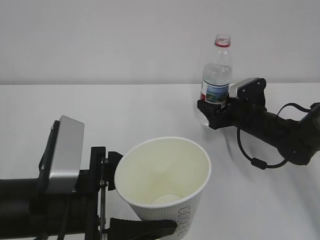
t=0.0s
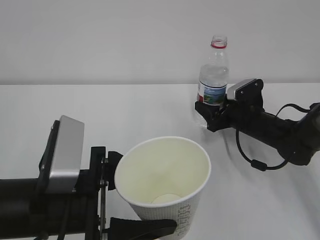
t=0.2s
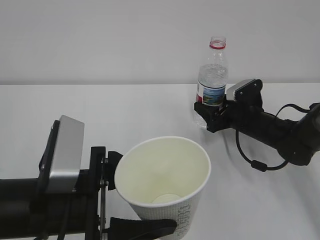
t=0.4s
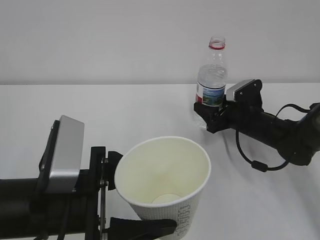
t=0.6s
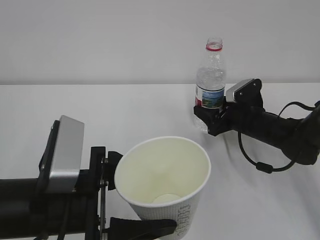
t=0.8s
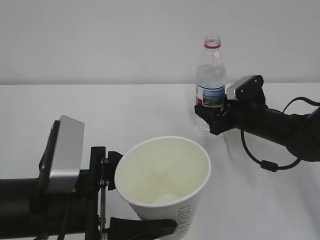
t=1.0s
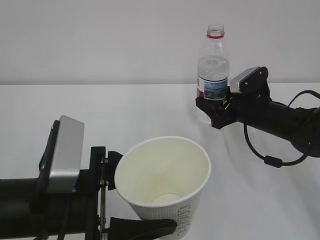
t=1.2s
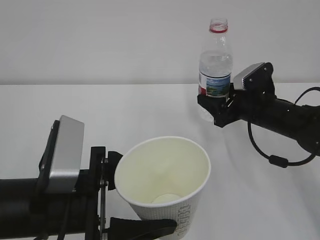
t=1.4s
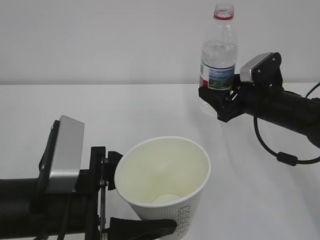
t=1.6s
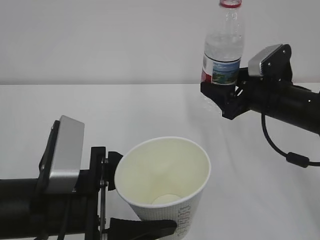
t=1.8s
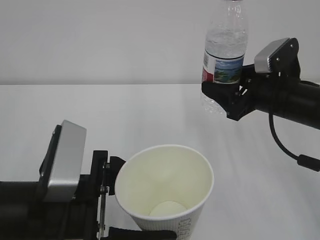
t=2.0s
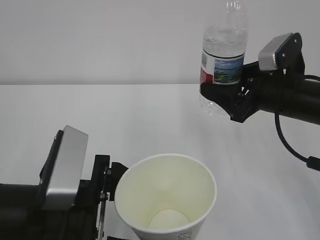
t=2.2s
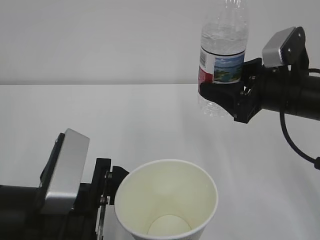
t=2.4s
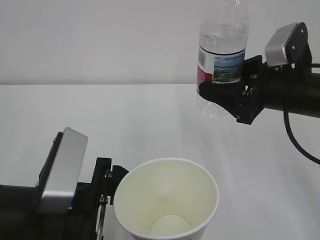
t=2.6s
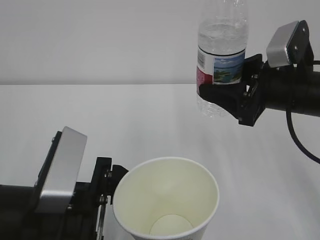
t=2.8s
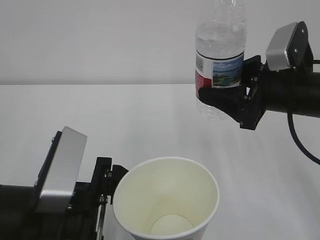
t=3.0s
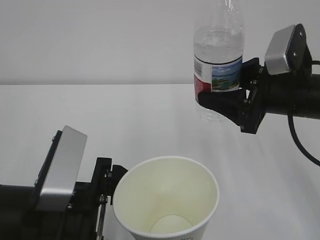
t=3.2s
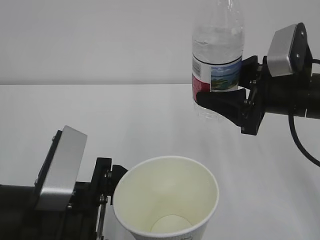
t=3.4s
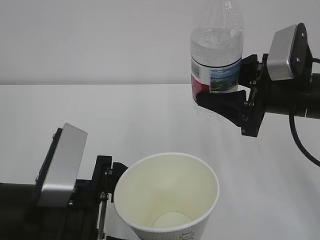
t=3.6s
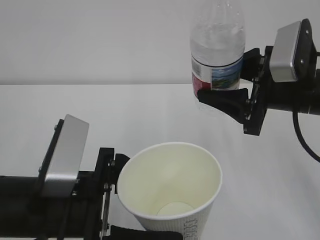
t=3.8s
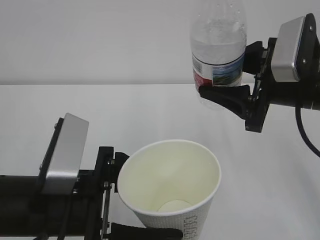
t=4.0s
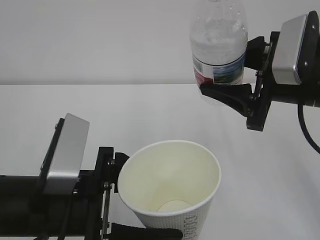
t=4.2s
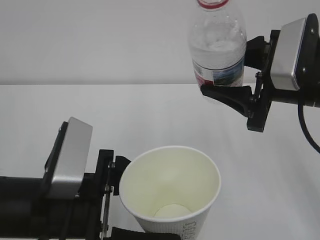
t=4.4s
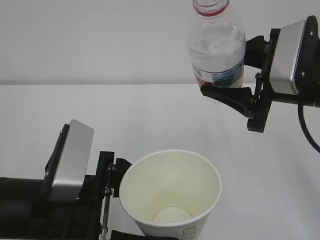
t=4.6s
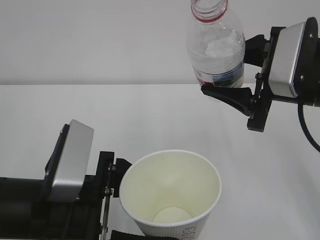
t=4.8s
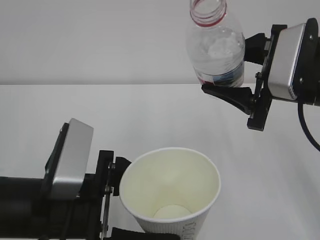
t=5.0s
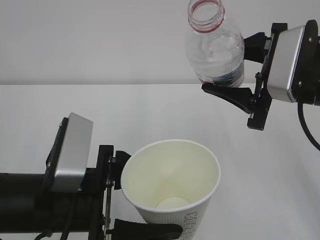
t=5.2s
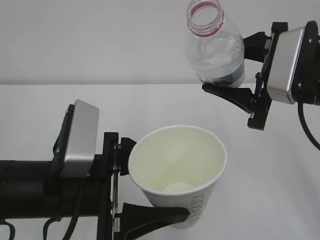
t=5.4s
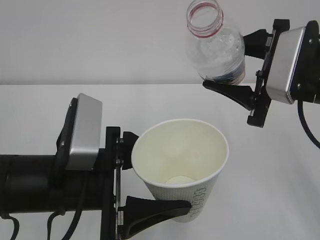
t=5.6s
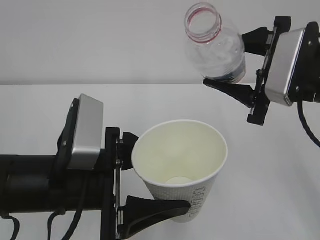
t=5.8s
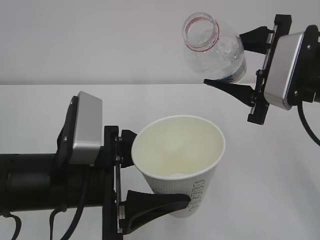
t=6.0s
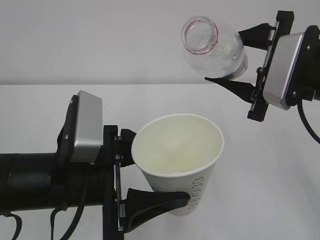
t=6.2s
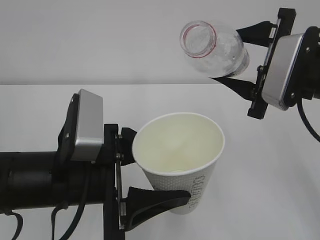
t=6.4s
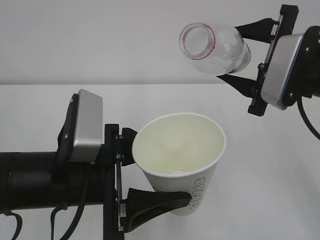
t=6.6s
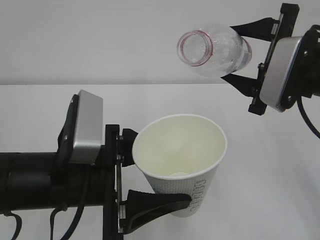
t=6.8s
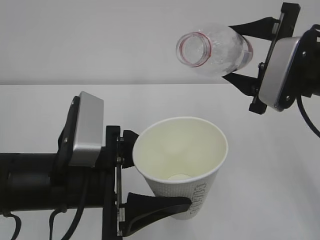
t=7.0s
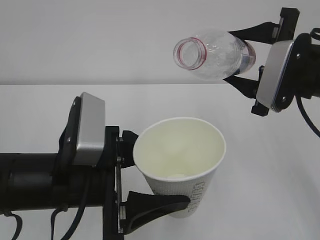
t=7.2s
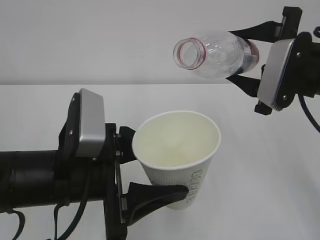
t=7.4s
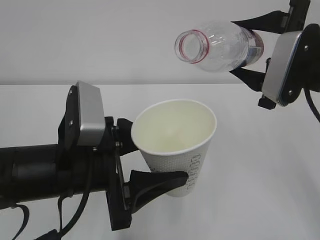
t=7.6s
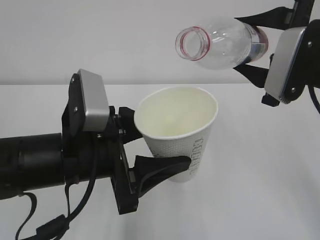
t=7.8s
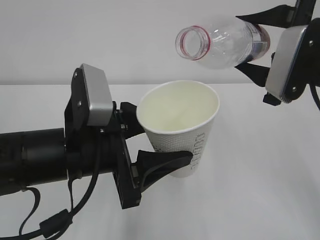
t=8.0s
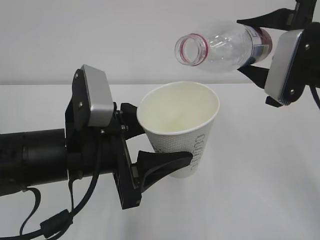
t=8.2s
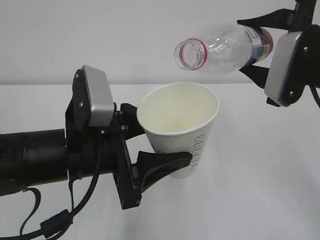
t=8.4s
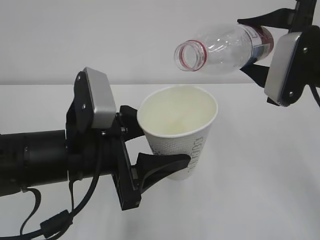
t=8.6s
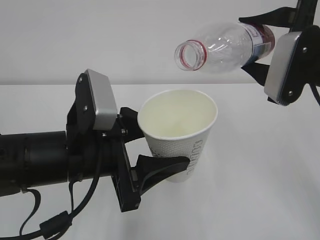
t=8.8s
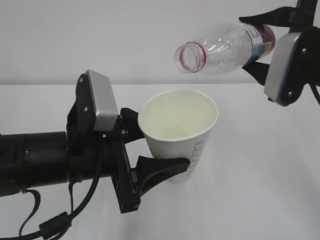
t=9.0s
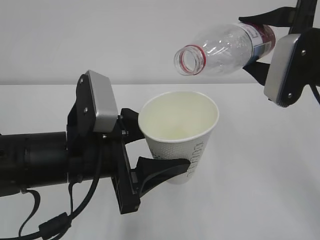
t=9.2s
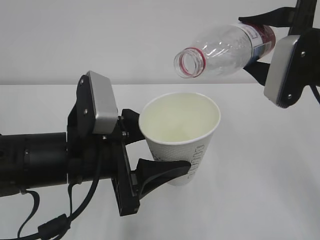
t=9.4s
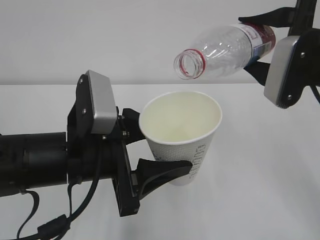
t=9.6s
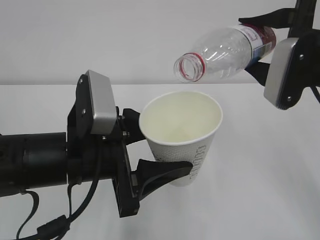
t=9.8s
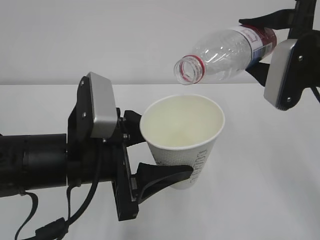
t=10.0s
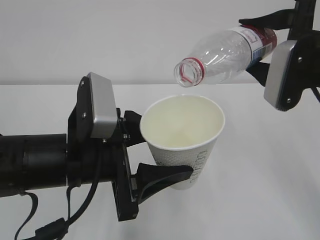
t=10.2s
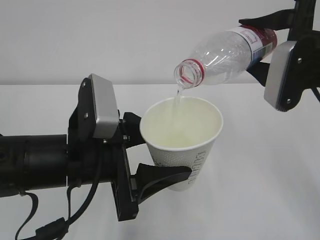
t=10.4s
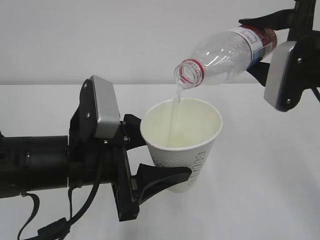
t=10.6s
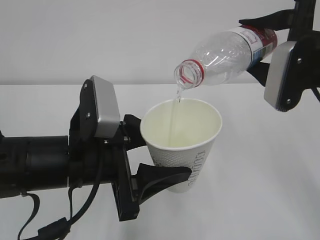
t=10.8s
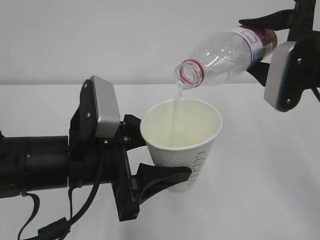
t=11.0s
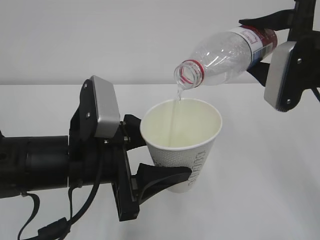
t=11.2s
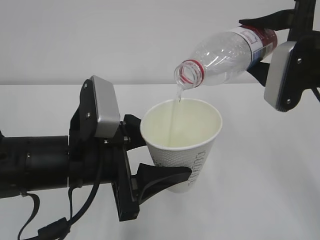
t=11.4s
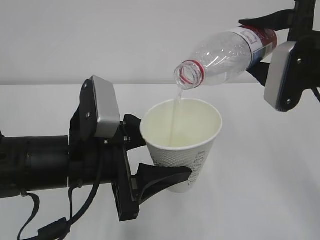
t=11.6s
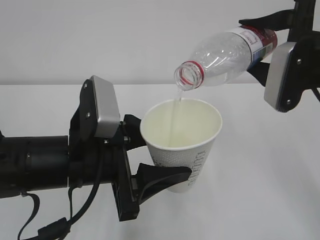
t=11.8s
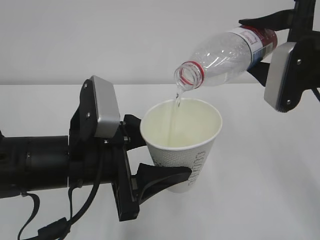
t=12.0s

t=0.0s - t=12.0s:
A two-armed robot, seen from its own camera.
t=0.0s - t=1.6s: The right gripper goes some 10 cm upward.
t=1.6s - t=3.0s: The right gripper shifts some 10 cm upward and backward.
t=7.6s - t=10.4s: The grippers move only a little.
t=10.4s - t=12.0s: Neither gripper changes place.

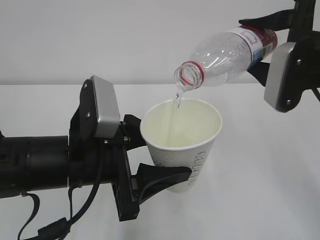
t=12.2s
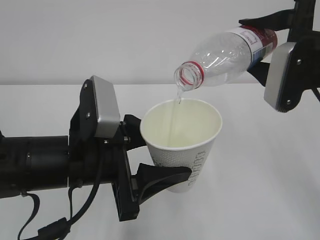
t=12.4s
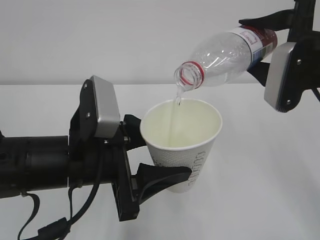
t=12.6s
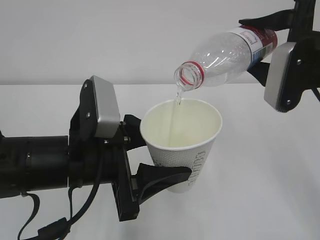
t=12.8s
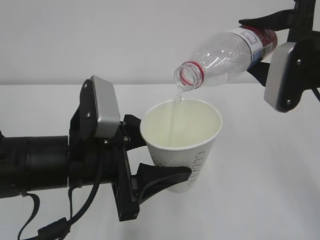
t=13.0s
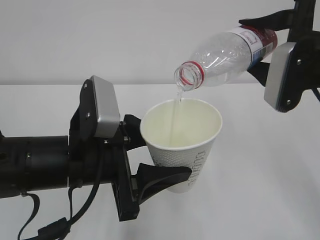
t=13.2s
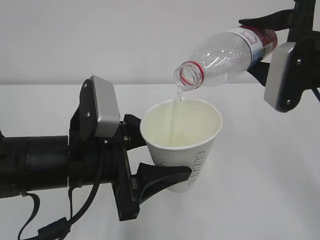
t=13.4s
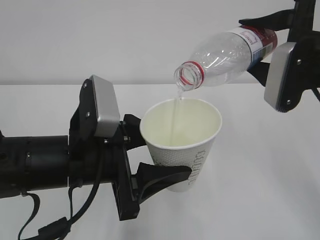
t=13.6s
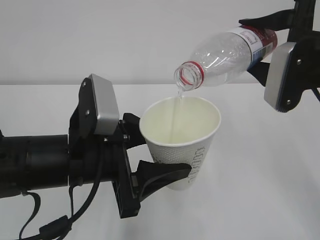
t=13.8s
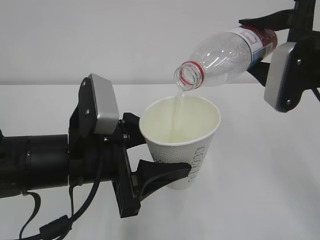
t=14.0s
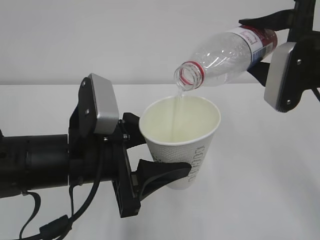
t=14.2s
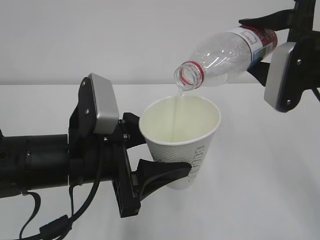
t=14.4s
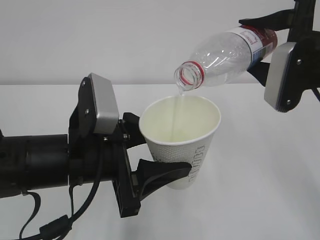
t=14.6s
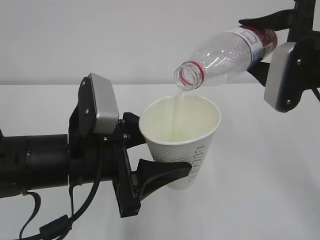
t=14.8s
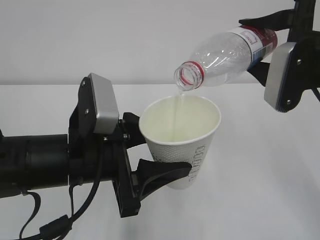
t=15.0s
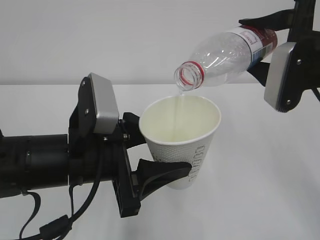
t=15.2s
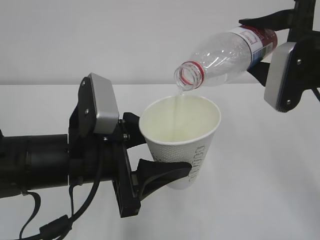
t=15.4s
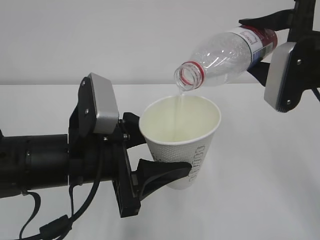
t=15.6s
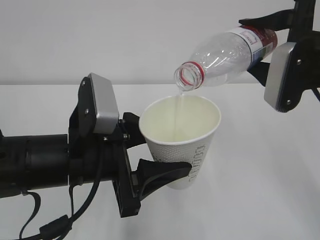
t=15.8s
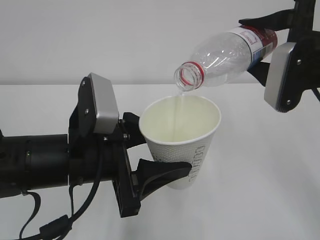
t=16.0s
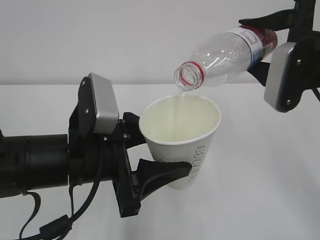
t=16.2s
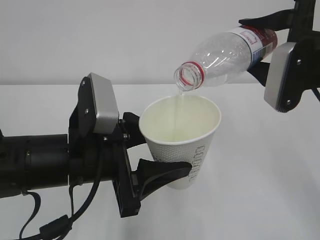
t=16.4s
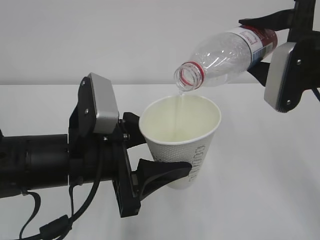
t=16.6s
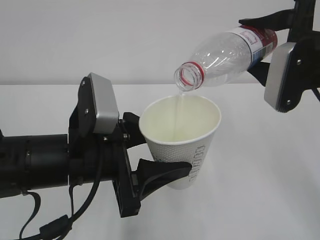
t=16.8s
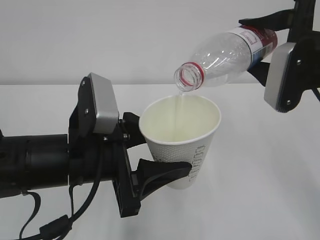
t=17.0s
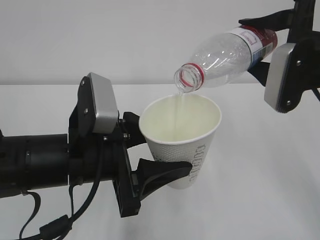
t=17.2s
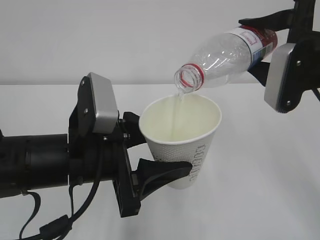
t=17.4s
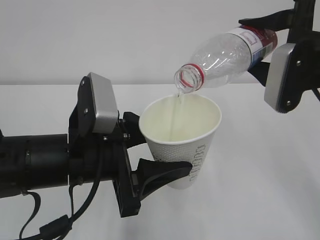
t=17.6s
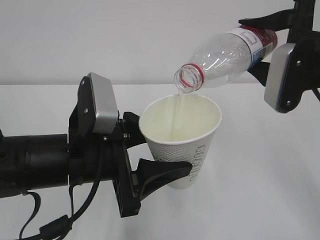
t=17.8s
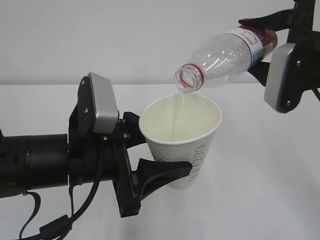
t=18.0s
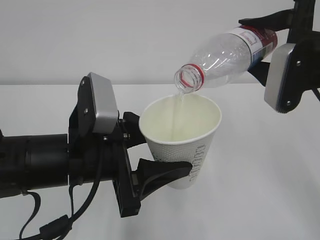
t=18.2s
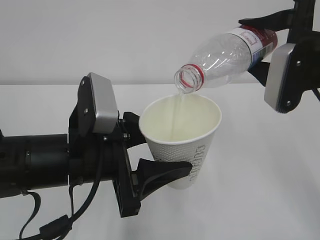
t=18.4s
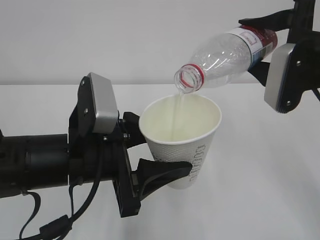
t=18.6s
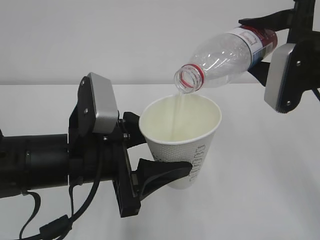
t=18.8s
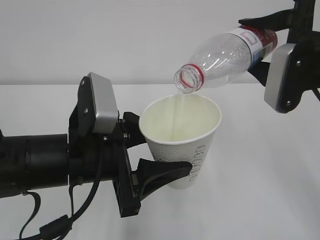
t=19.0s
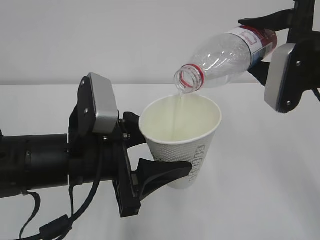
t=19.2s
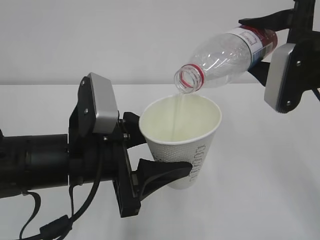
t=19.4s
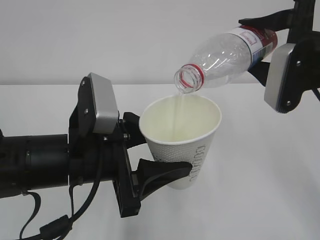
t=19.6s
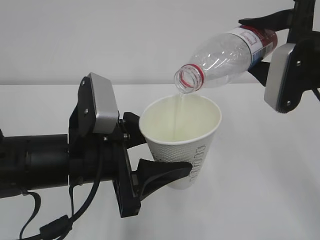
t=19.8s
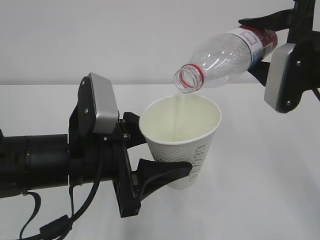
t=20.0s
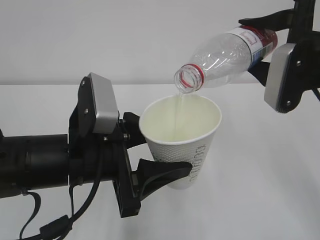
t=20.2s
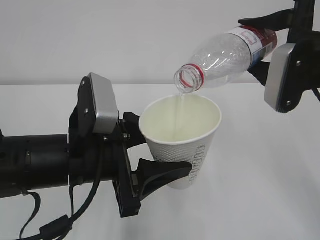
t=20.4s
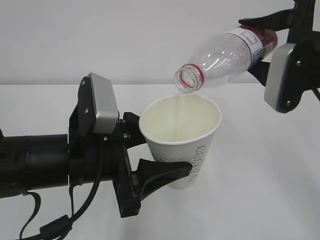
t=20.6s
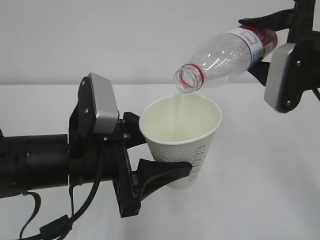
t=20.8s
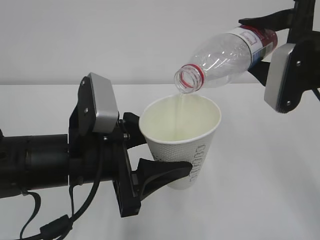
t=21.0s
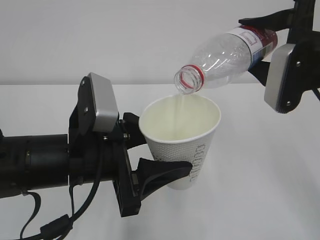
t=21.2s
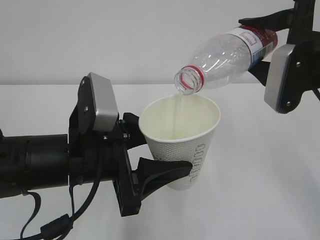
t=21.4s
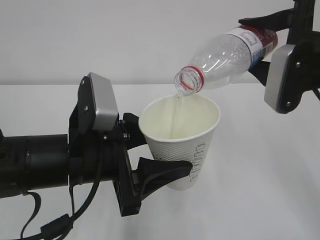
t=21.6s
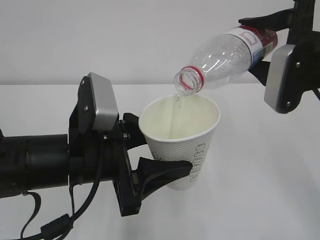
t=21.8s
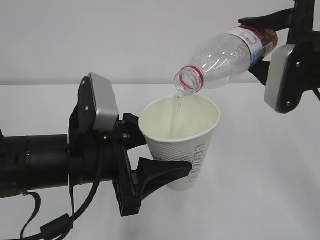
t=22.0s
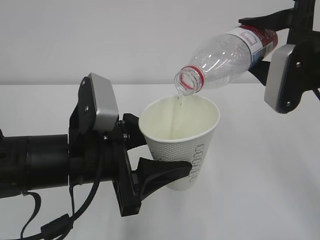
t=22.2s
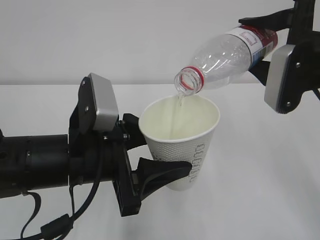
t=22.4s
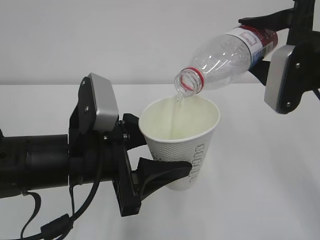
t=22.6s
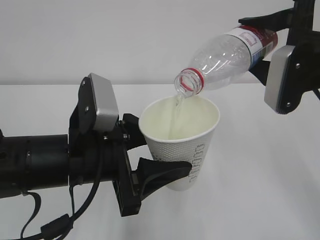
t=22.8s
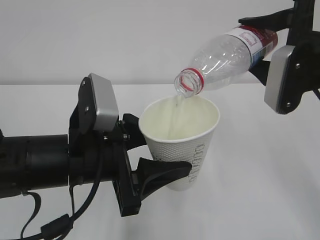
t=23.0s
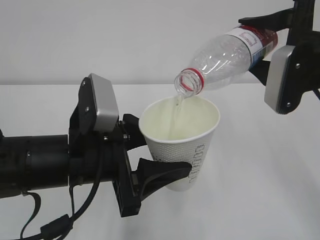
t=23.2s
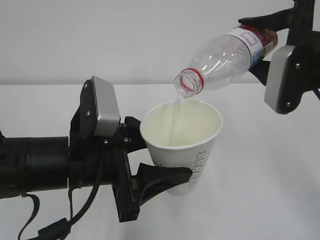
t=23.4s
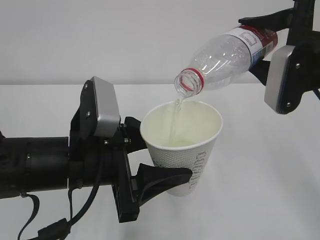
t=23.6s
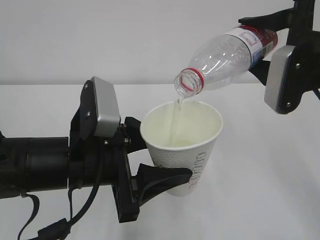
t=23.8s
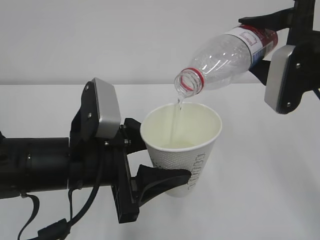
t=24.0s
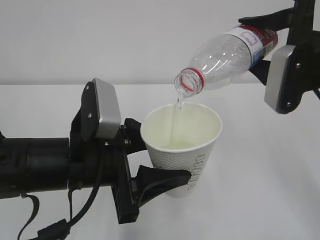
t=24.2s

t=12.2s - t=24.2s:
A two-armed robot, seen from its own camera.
t=12.2s - t=24.2s: Both grippers stay put.
